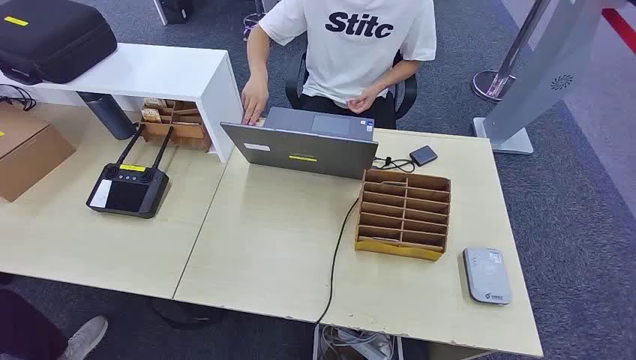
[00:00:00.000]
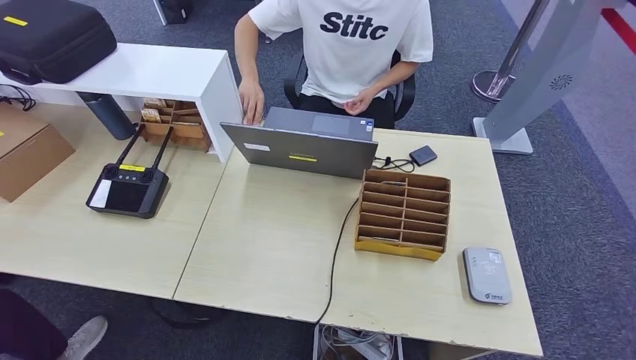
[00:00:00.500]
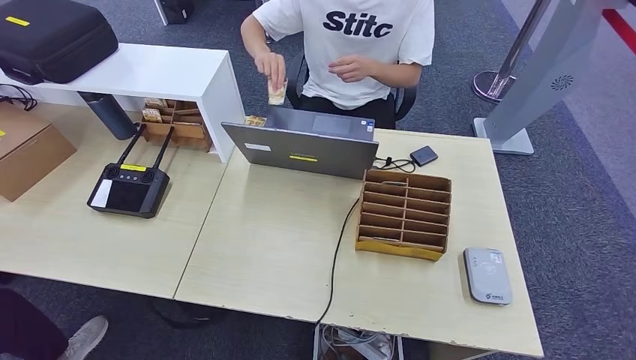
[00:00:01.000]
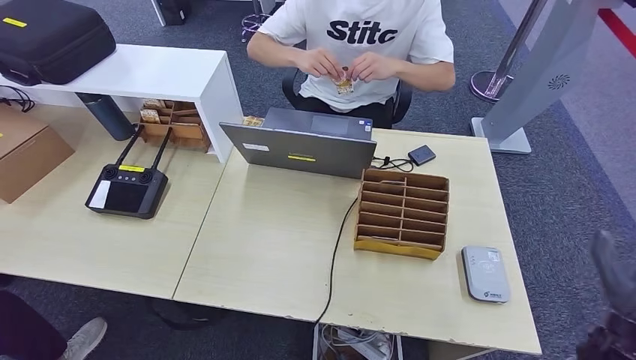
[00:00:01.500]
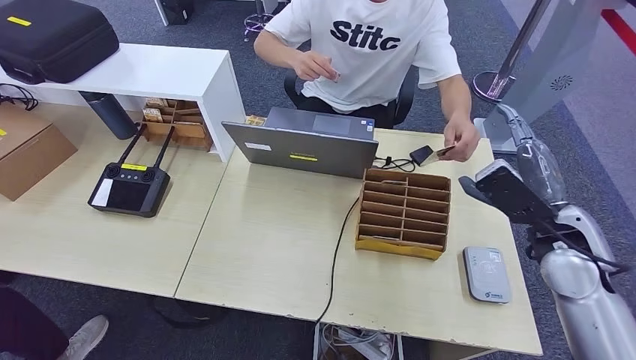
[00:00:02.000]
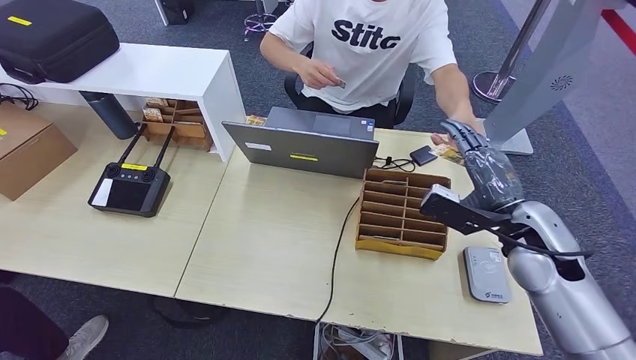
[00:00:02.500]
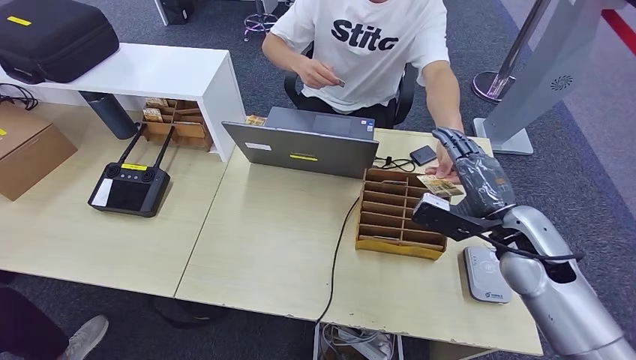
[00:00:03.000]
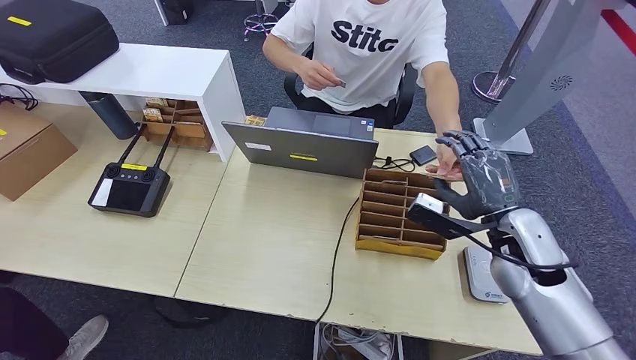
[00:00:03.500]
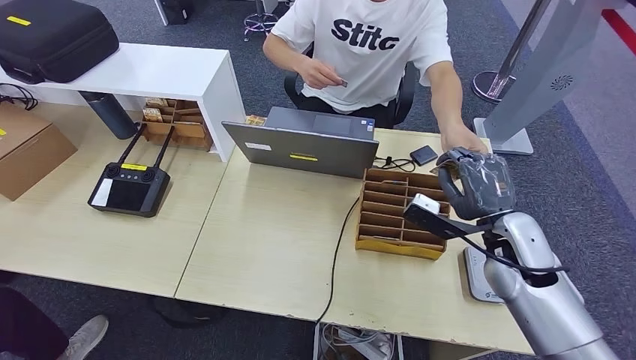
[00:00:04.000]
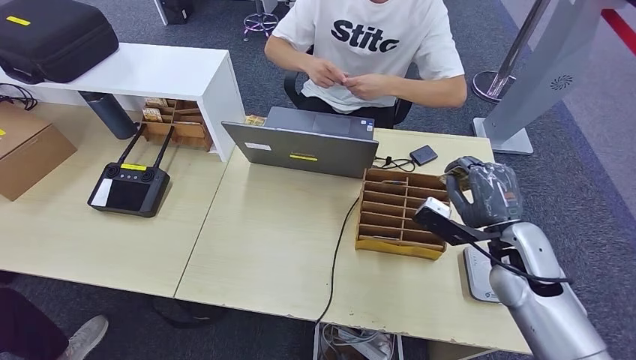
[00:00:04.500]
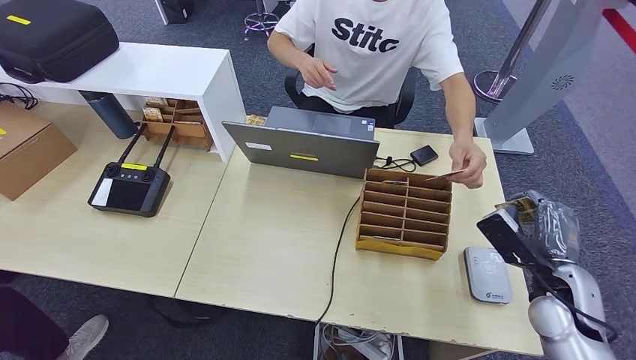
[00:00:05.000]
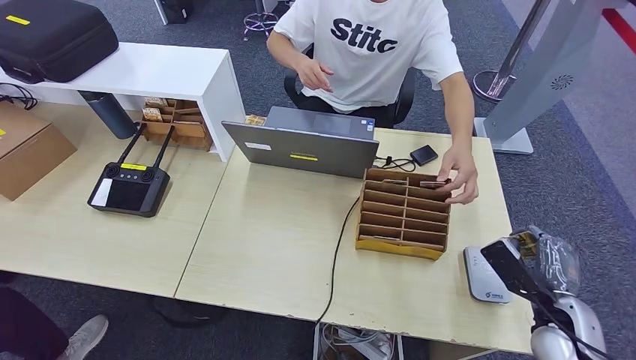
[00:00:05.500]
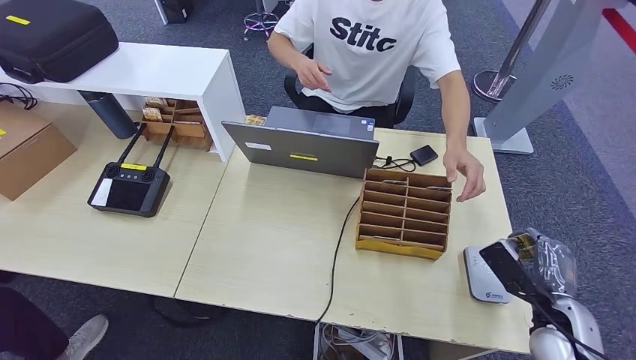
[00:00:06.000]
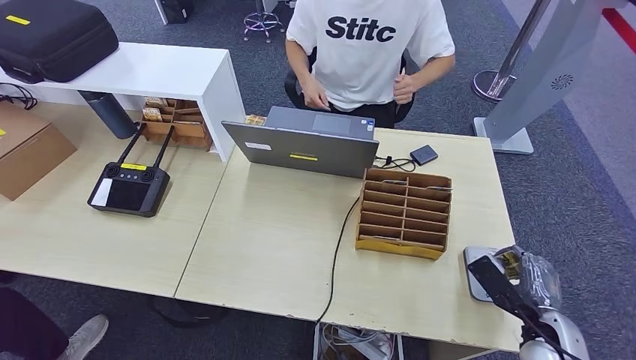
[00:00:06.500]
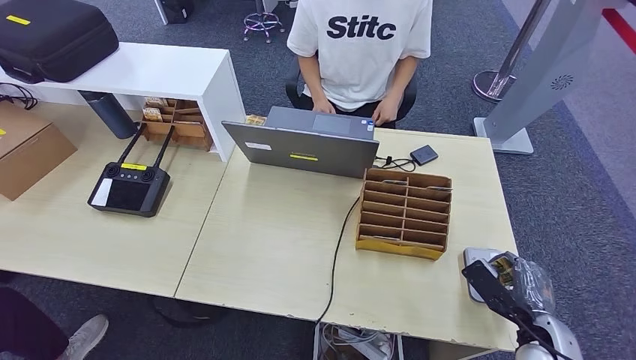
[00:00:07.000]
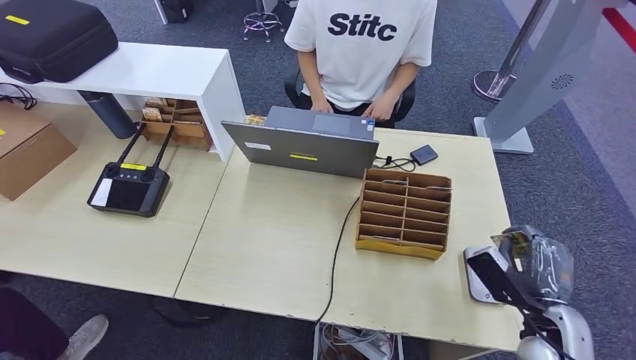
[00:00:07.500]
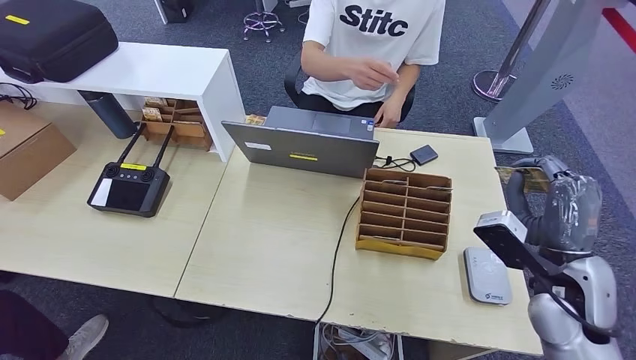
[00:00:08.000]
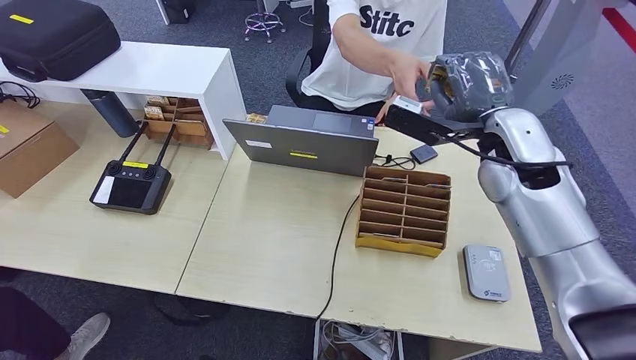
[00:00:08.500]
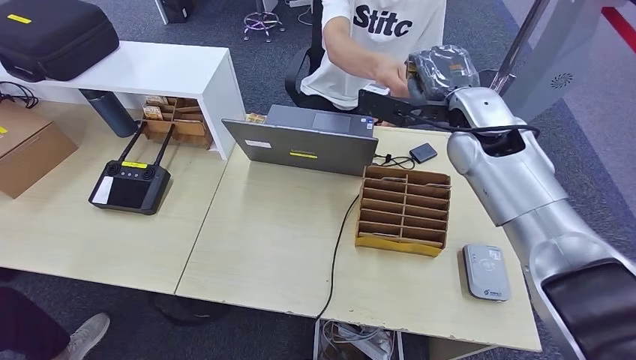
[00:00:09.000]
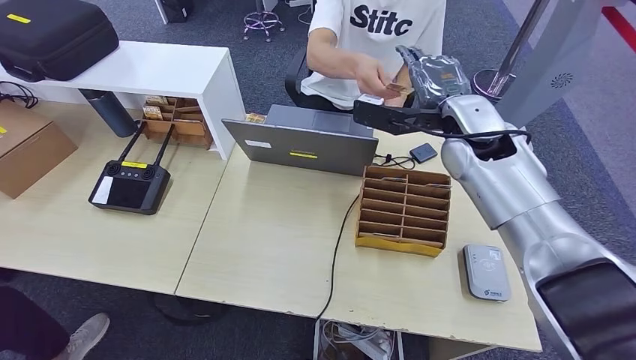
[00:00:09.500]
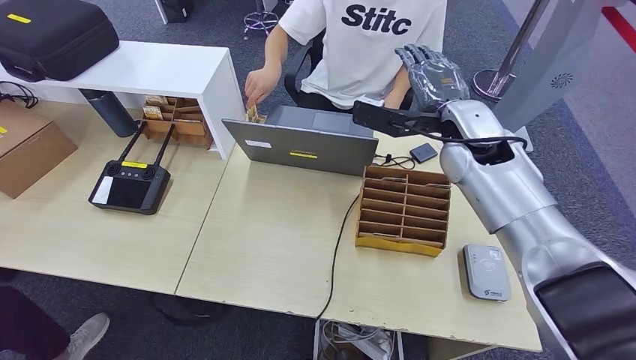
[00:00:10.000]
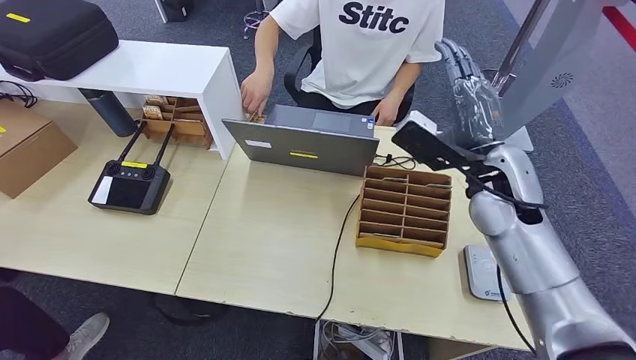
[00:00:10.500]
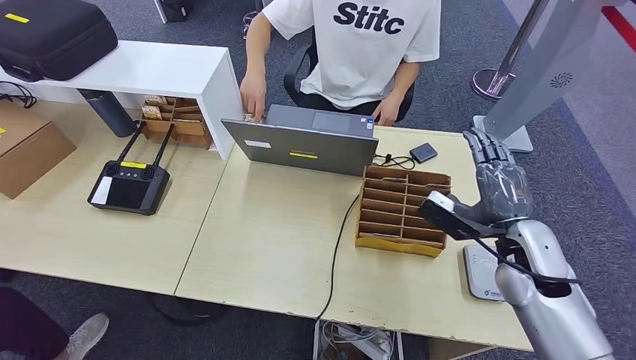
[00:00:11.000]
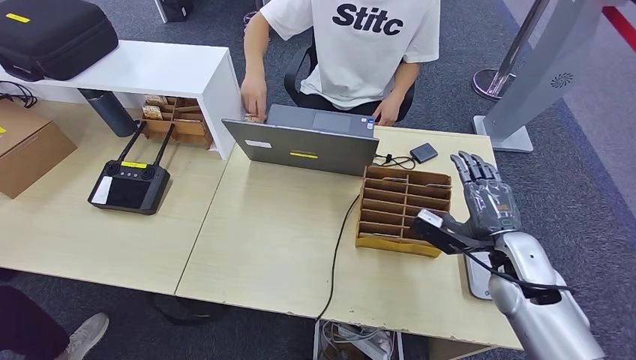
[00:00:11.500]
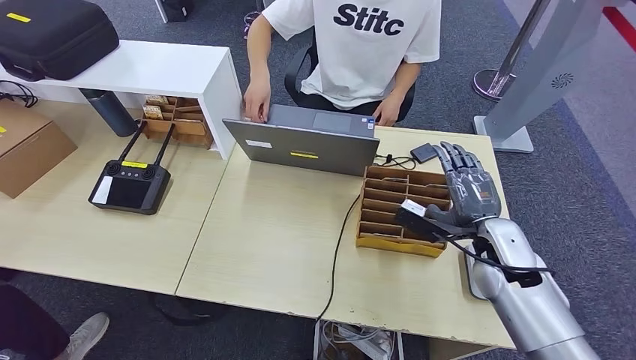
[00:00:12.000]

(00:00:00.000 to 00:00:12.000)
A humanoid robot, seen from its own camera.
Step, 00:00:00.000 - 00:00:04.500: Take the ID card from the person's hand.
Step, 00:00:05.000 - 00:00:07.000: Place the ID card on the card reader.
Step, 00:00:07.500 - 00:00:10.000: Hand the ID card to the person.
00:00:02.000 - 00:00:04.000: The right hand moves some 5 cm.
00:00:04.000 - 00:00:06.000: The right hand heads downward, backward and to the right, covering roughly 15 cm.
00:00:06.000 - 00:00:08.000: The right hand shifts approximately 15 cm upward and to the left.
00:00:10.000 - 00:00:12.000: The right hand travels downward, backward and to the right by approximately 20 cm.

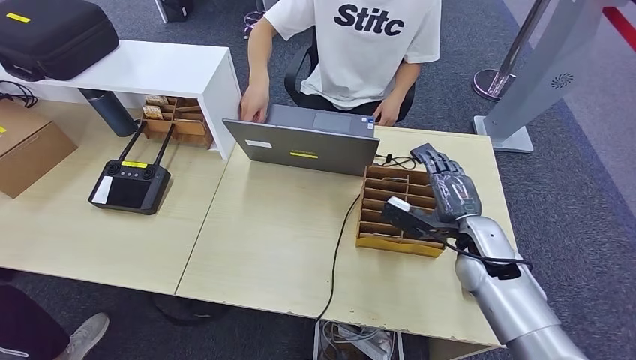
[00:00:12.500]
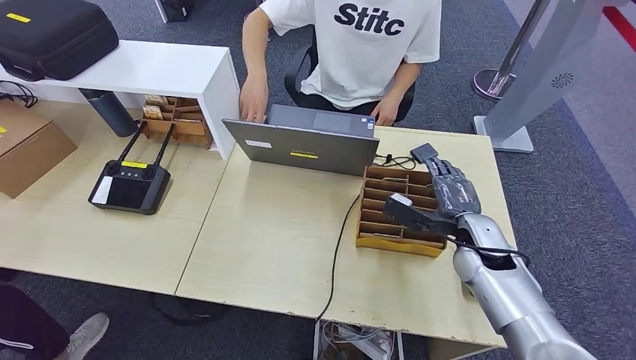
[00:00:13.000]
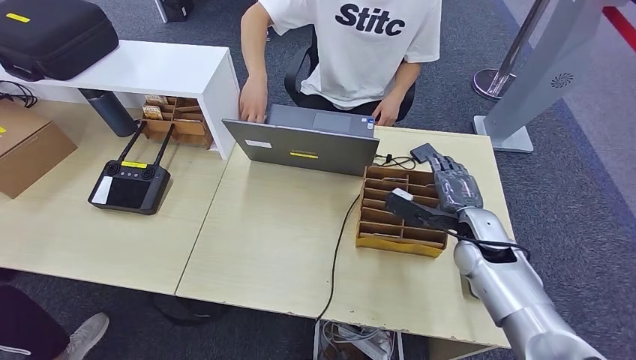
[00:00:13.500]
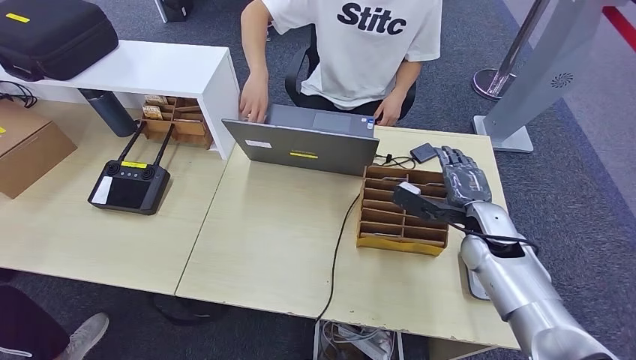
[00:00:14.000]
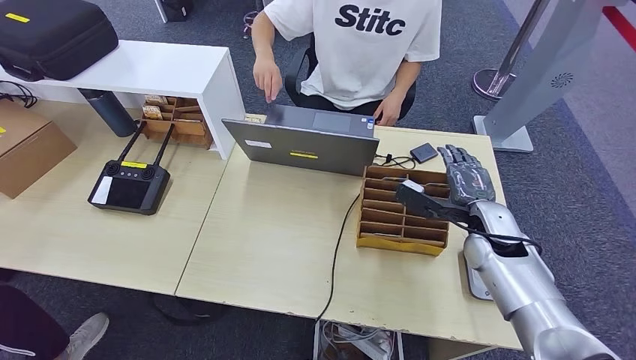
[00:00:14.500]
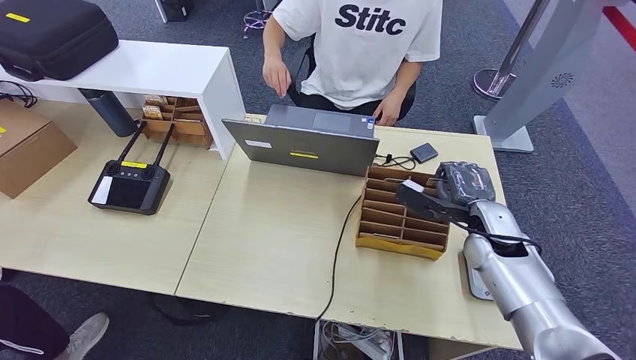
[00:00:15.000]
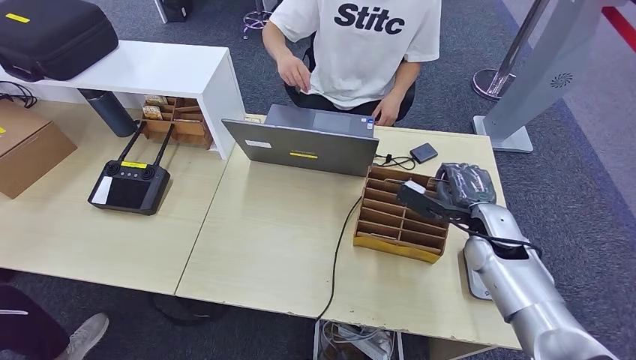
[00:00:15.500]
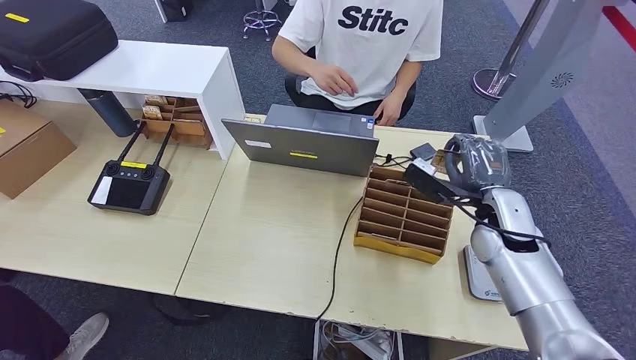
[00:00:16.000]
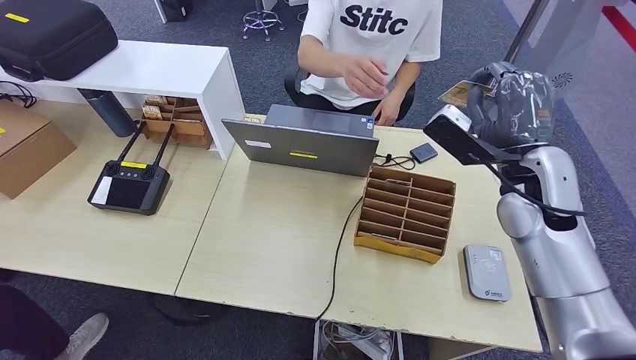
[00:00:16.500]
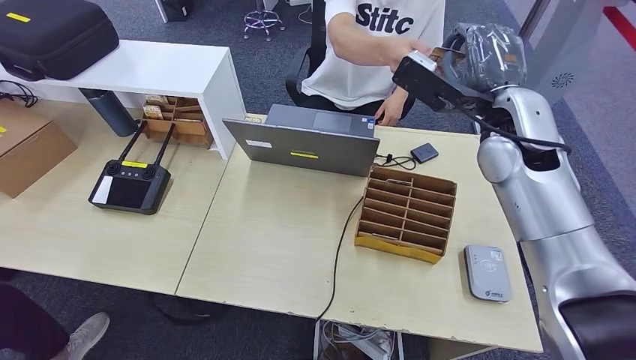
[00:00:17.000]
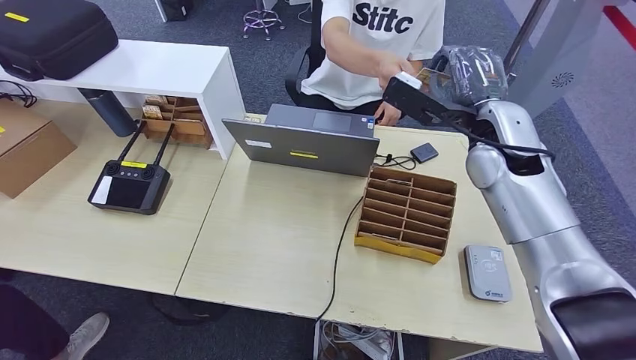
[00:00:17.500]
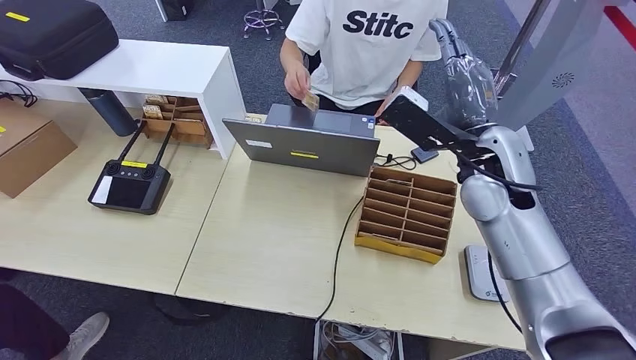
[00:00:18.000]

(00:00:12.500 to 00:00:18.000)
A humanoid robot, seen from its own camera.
Step, 00:00:14.000 - 00:00:16.500: Pick up the room key from the key card box.
Step, 00:00:17.000 - 00:00:18.000: Hand the room key to the person.
00:00:12.500 - 00:00:16.000: The hands move only a little.
00:00:16.000 - 00:00:18.000: The right hand travels upward and to the left by roughly 15 cm.
